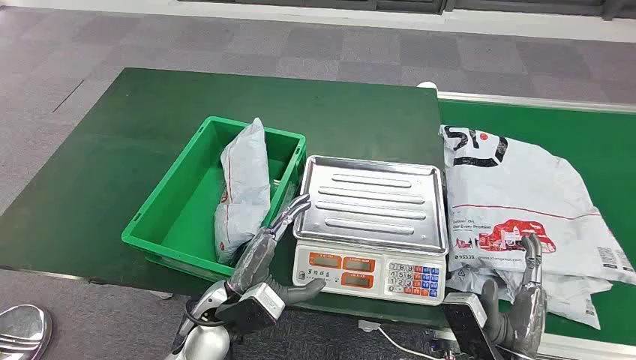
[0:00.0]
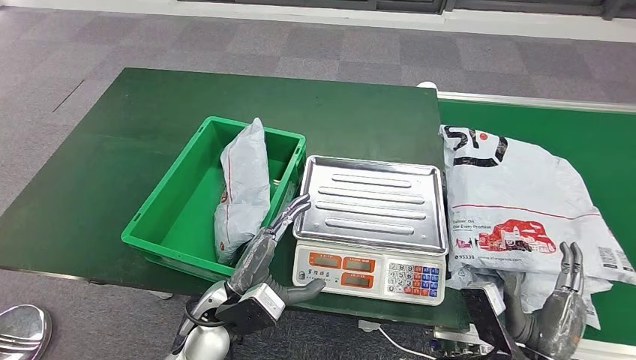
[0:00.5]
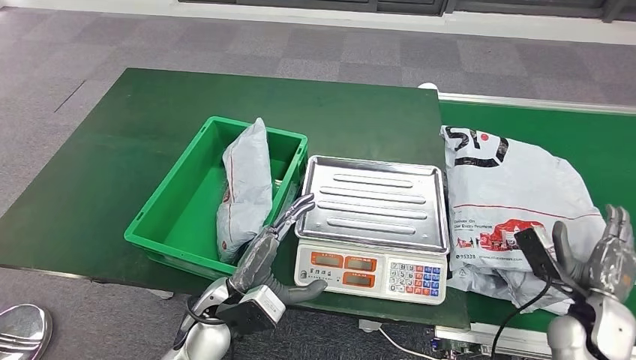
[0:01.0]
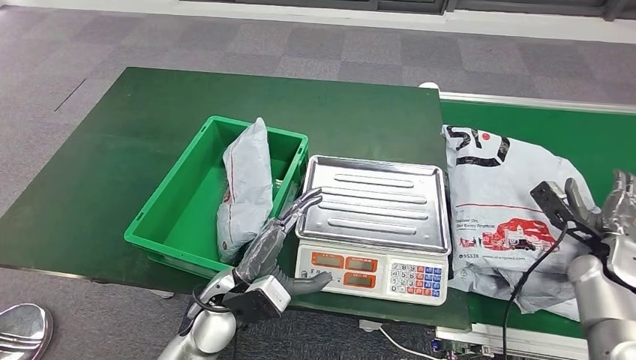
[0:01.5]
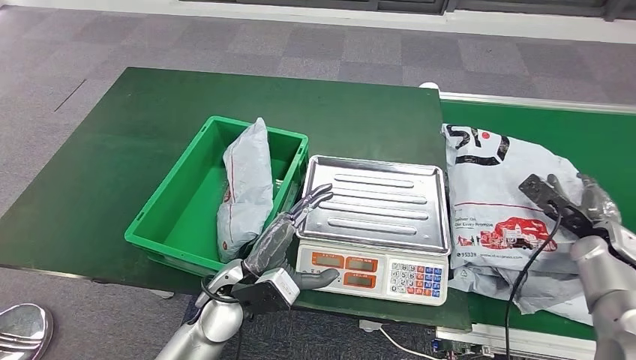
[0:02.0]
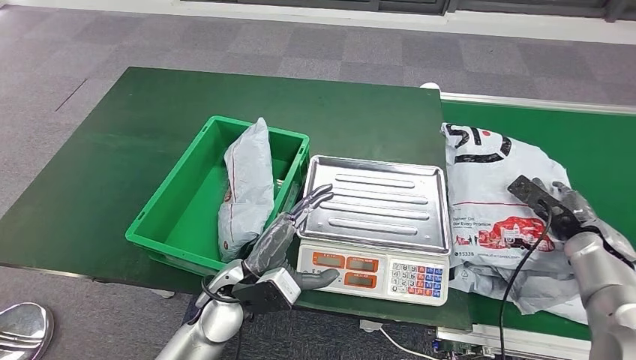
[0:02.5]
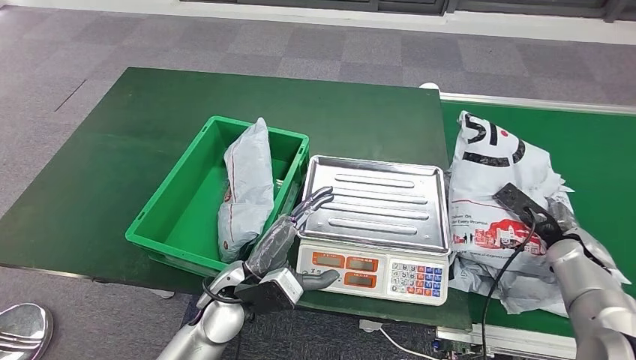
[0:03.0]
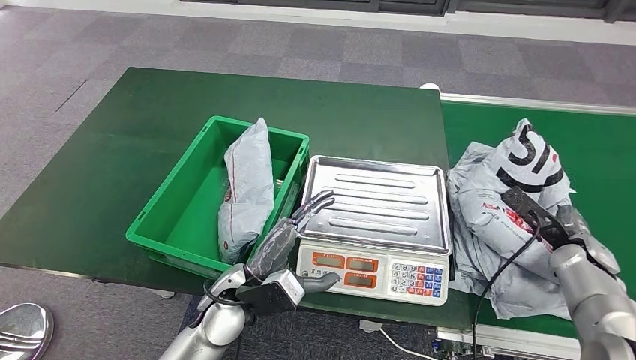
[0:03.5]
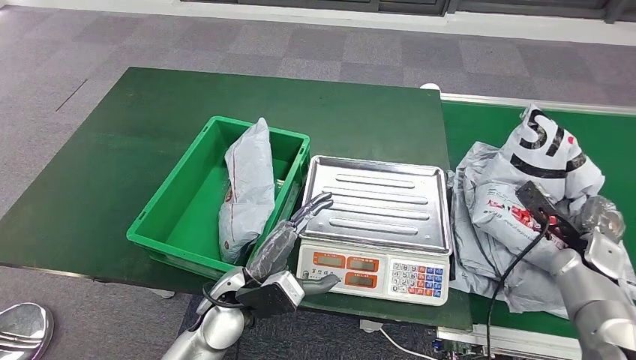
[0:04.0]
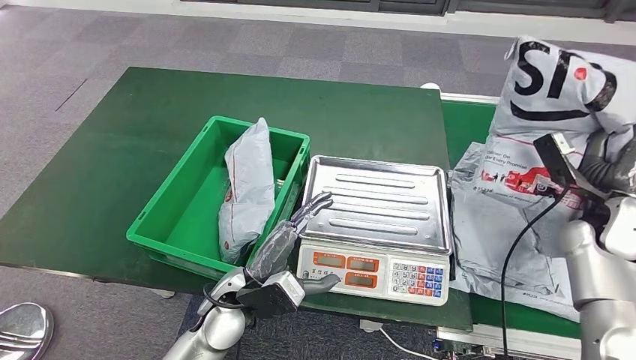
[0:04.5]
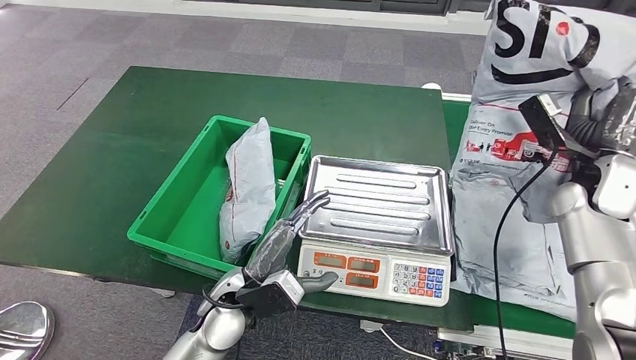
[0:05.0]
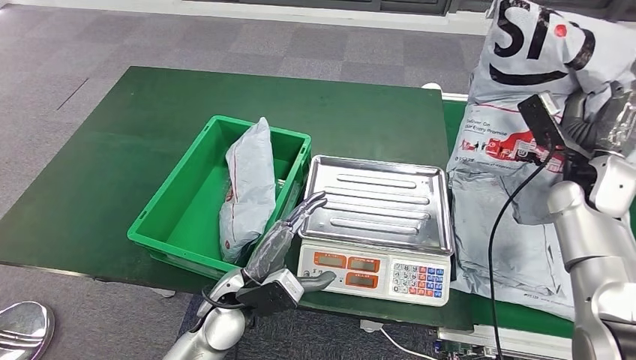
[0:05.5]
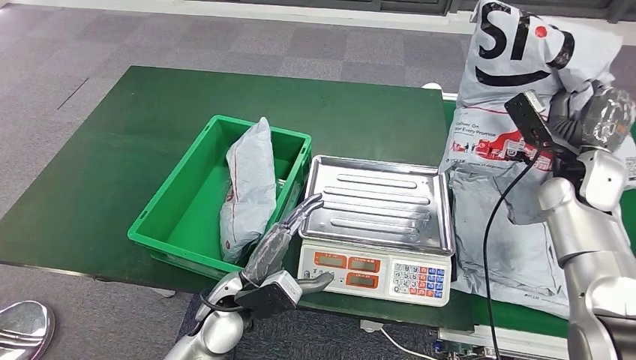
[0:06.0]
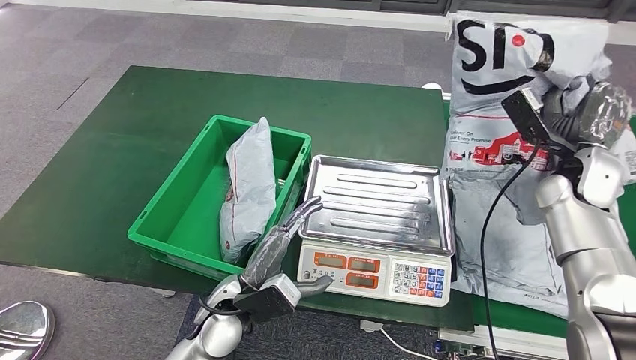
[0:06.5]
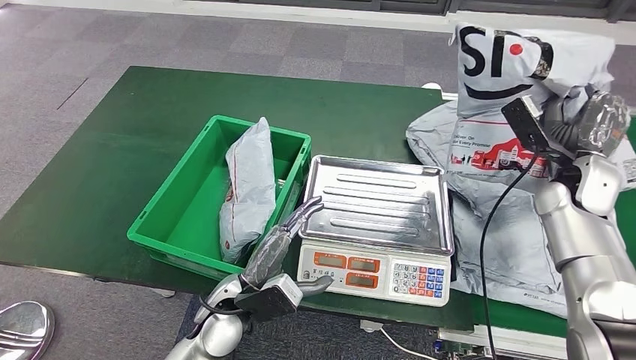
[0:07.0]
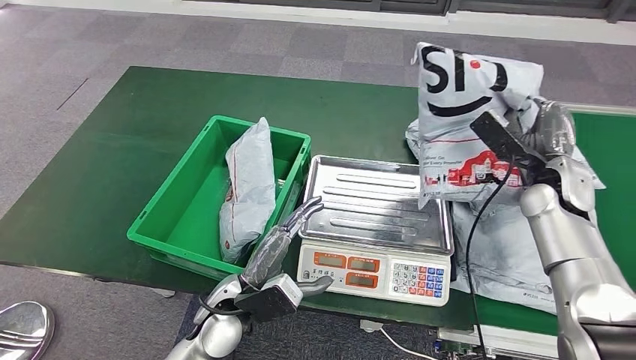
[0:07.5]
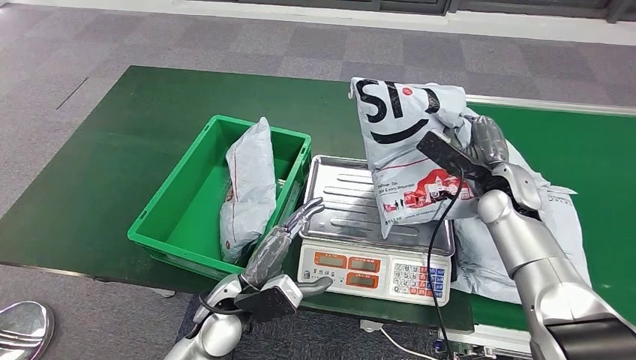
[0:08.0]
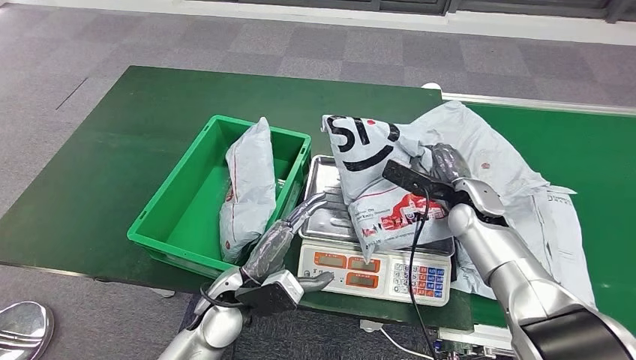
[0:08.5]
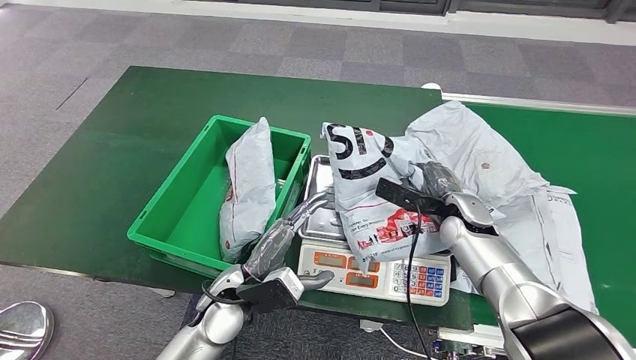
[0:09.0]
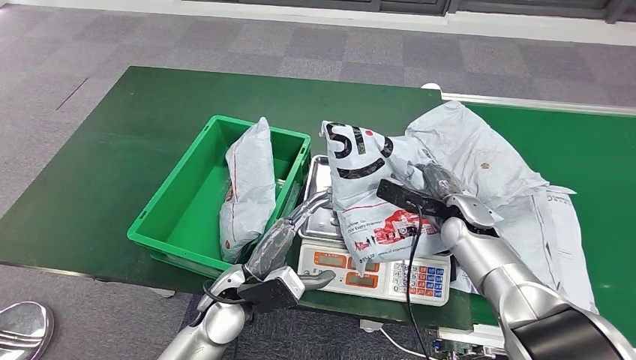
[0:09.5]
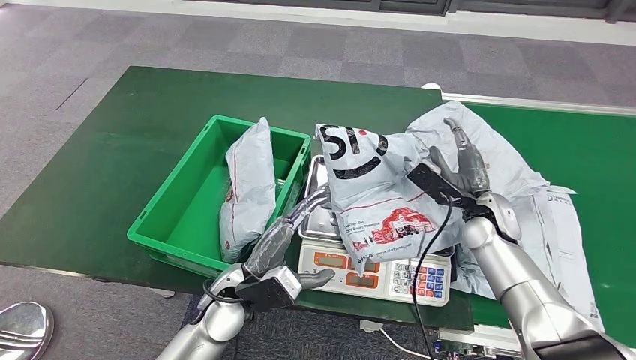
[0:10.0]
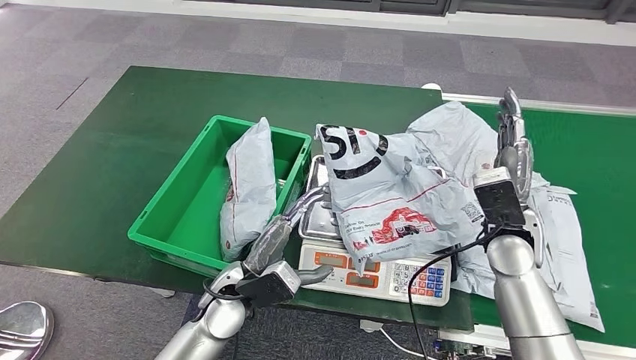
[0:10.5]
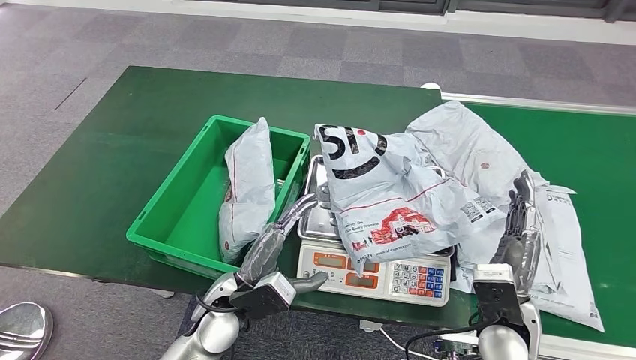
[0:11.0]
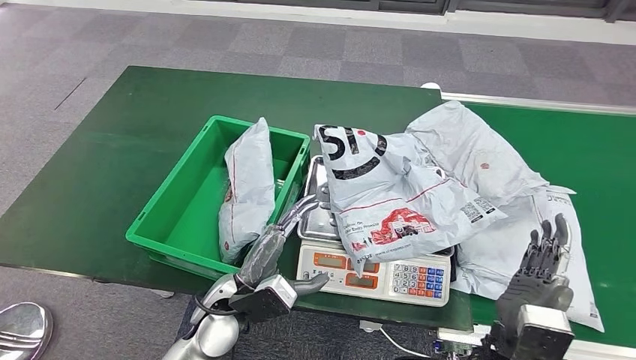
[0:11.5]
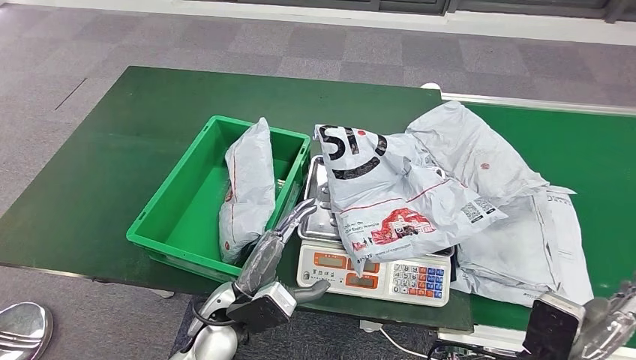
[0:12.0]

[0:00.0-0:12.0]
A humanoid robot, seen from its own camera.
Step, 0:00.0 to 0:05.0: Take the parcel off the conveyor belt.
Step, 0:07.5 to 0:10.0: Place the parcel onto the inbound machine.
0:02.0 to 0:04.0: The hands move only a little.
0:08.0 to 0:10.0: The right hand travels downward by approximately 5 cm.
0:10.0 to 0:12.0: The right hand heads backward, covering about 25 cm.

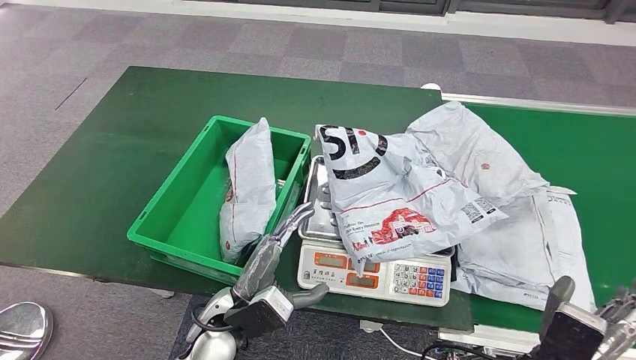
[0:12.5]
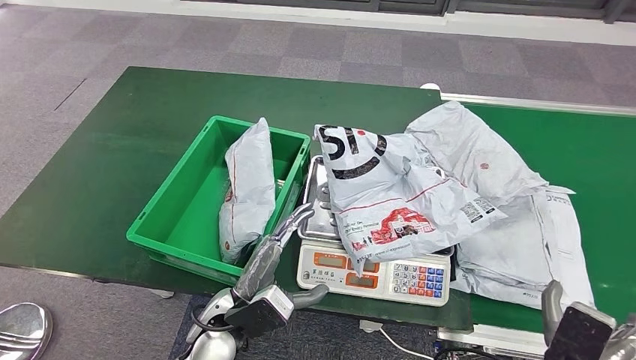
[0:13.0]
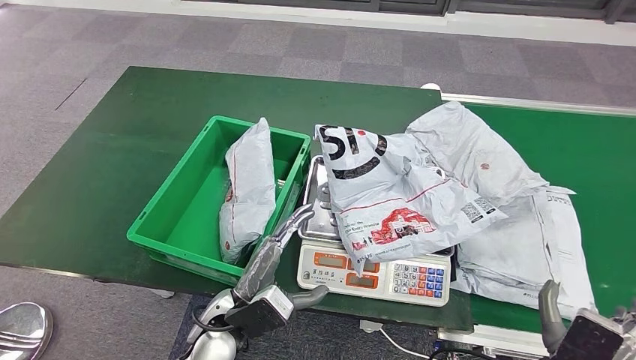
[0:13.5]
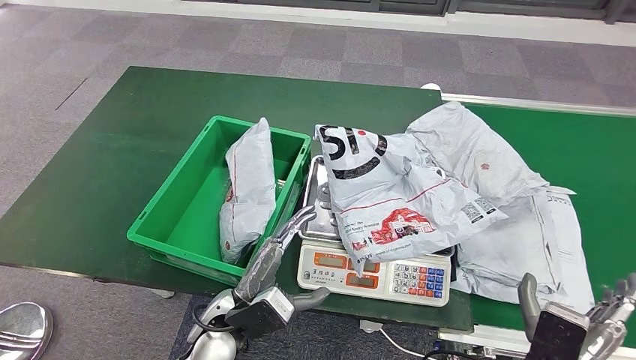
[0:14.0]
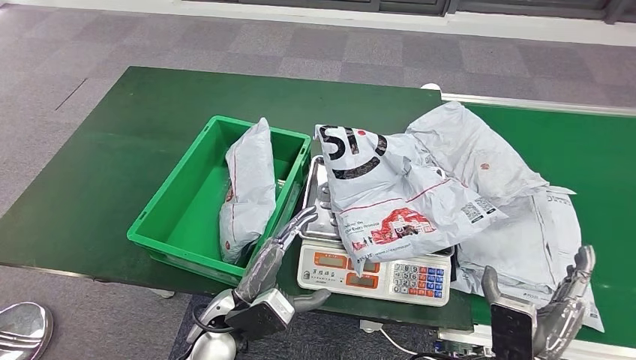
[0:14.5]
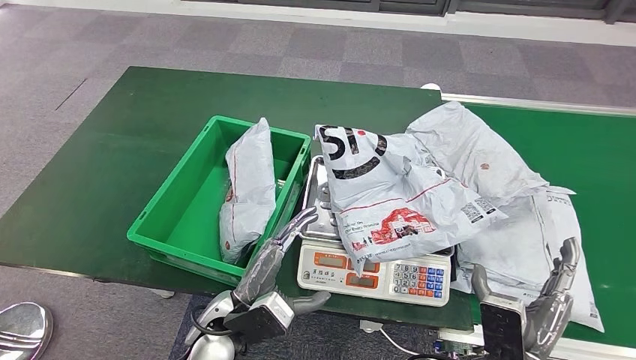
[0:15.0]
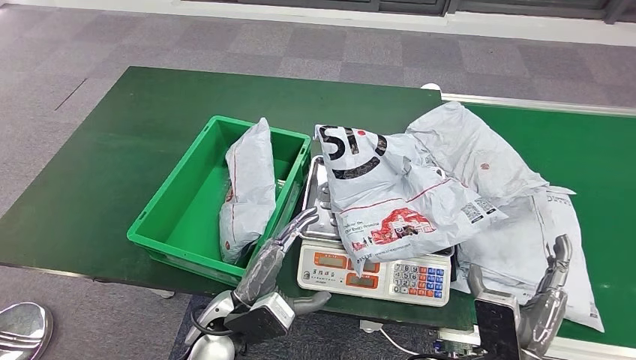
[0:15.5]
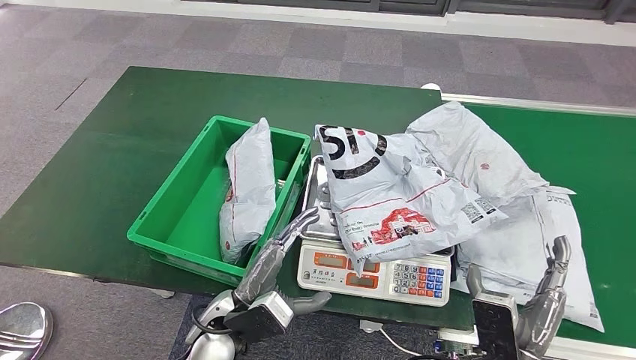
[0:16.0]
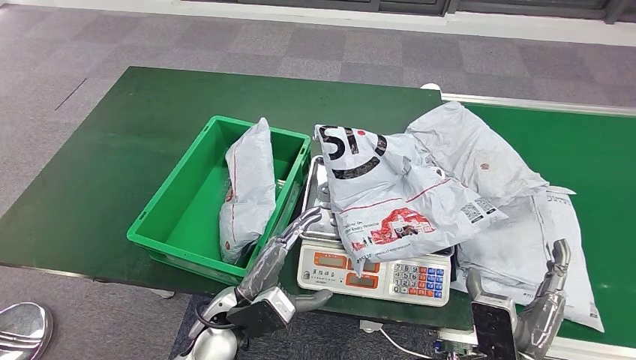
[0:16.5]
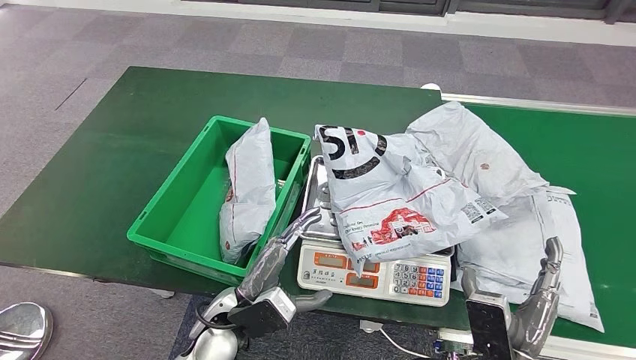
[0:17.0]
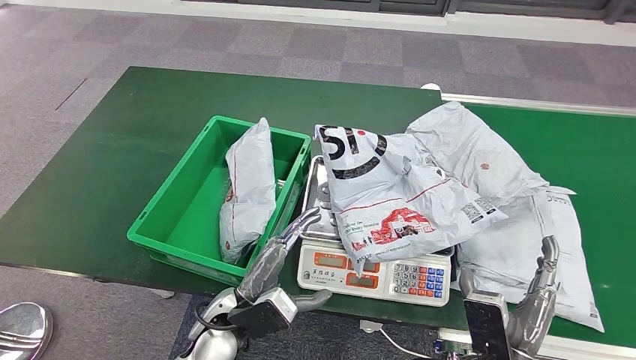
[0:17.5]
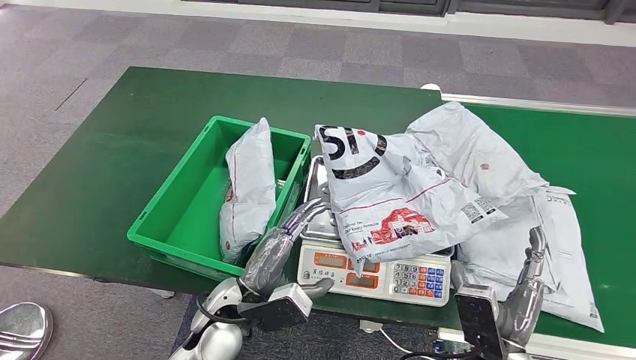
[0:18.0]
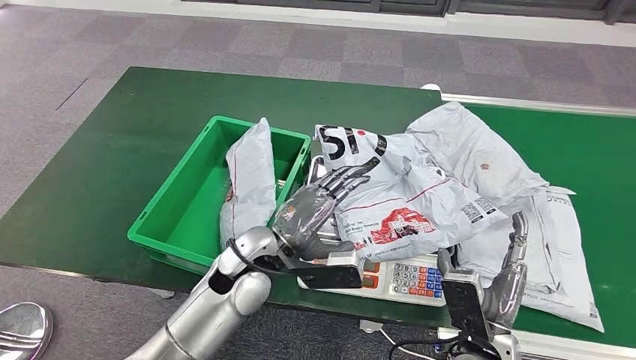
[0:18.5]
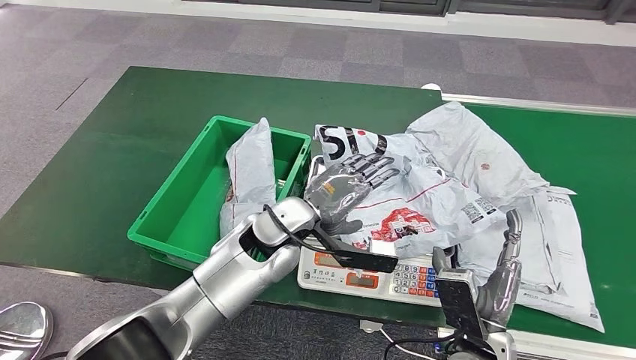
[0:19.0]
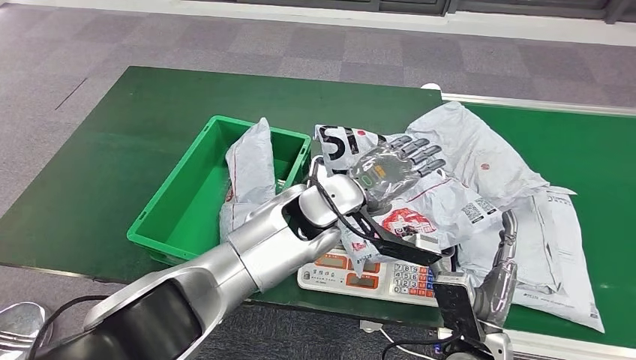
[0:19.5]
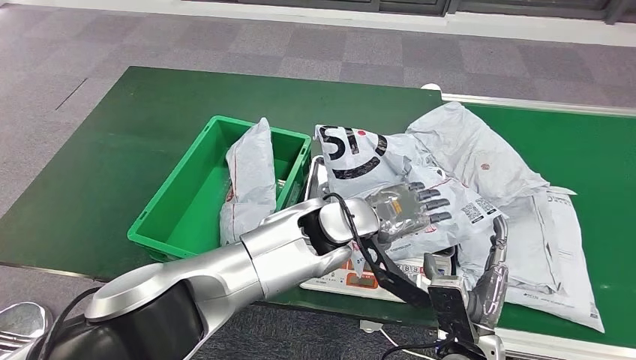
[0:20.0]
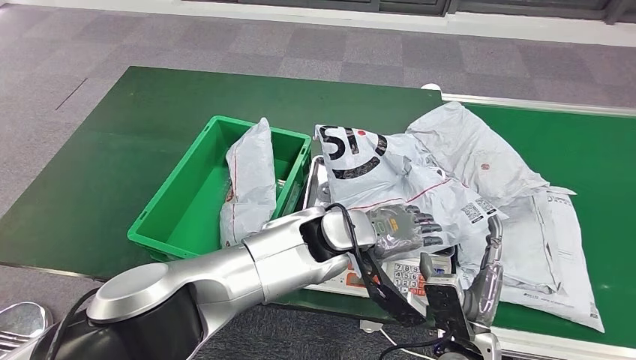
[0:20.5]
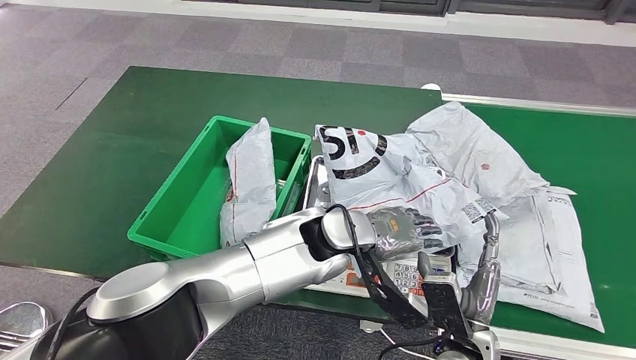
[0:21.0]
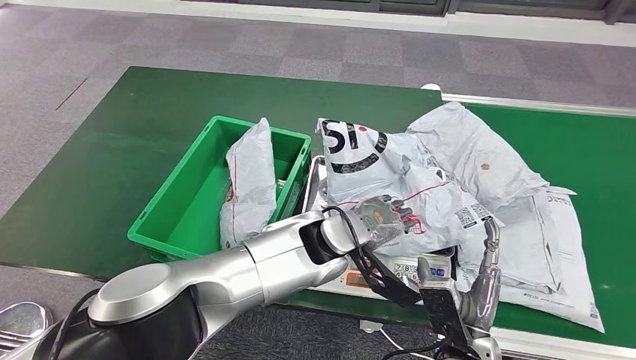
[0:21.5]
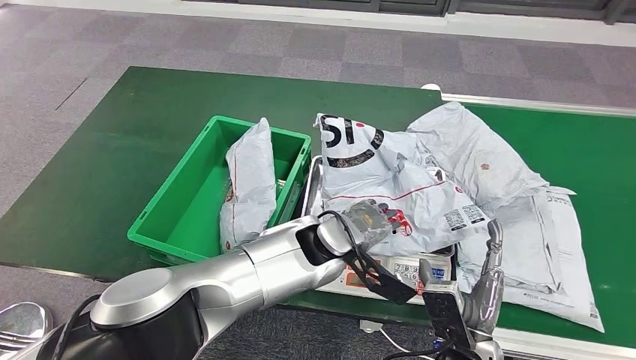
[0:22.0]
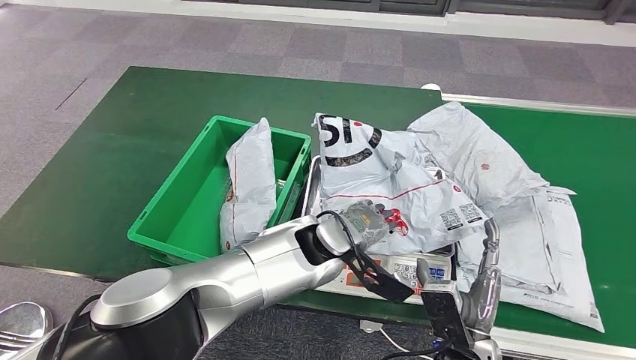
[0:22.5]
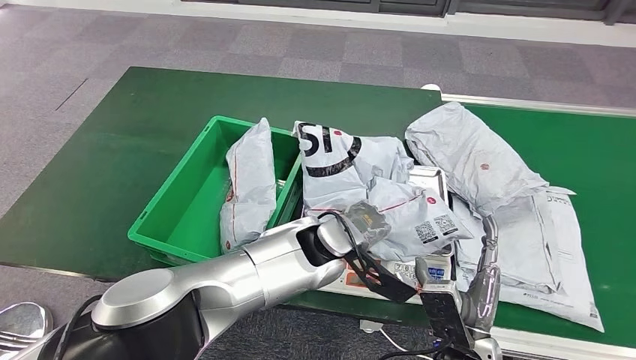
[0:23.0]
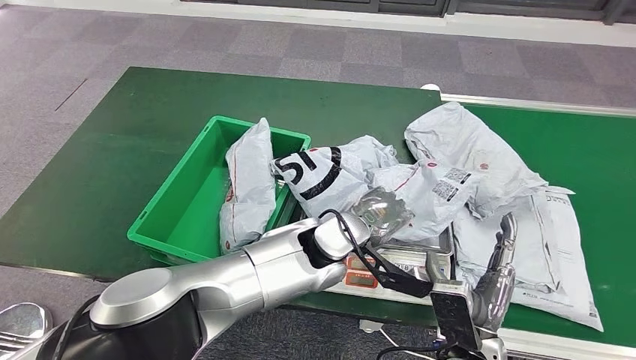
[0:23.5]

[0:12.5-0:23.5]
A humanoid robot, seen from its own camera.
0:12.5 to 0:14.5: The hands make only small movements.
0:14.5 to 0:18.0: The hands make only small movements.
0:18.0 to 0:20.0: The left hand shifts about 25 cm to the right, upward and forward.
0:20.0 to 0:21.5: There are only small adjustments of the hands.
0:21.5 to 0:23.5: There are only small adjustments of the hands.
